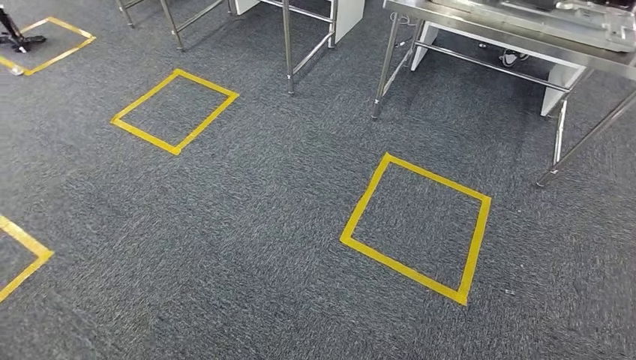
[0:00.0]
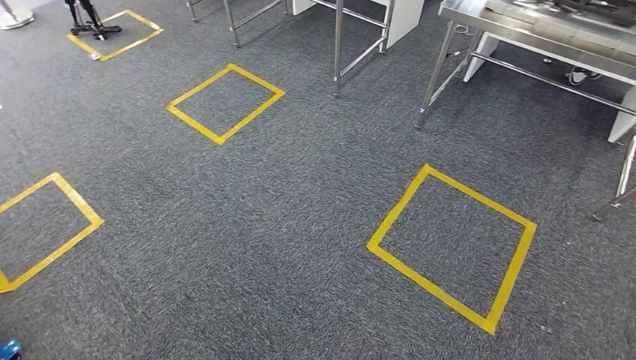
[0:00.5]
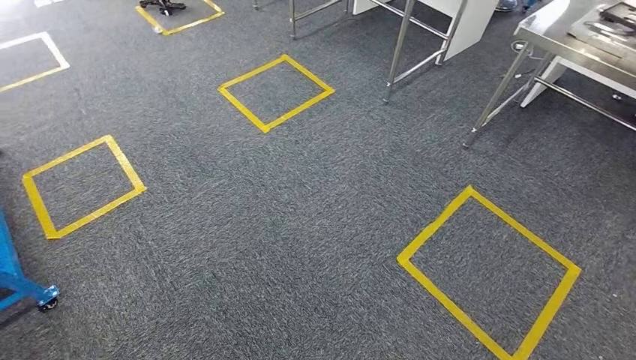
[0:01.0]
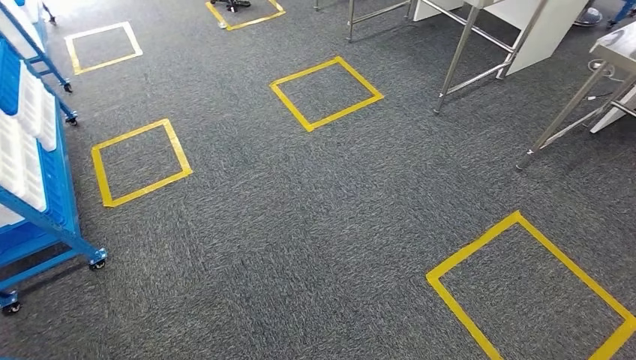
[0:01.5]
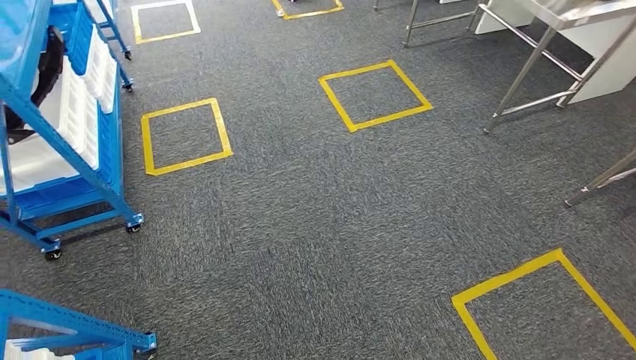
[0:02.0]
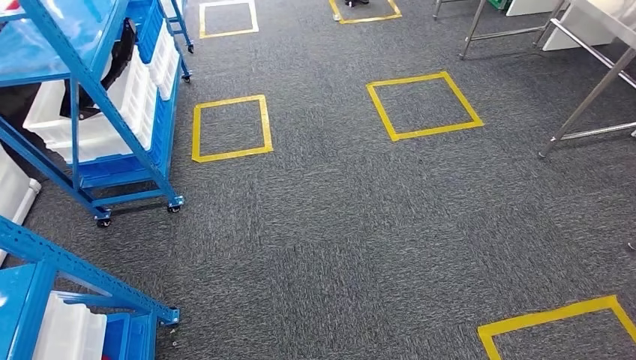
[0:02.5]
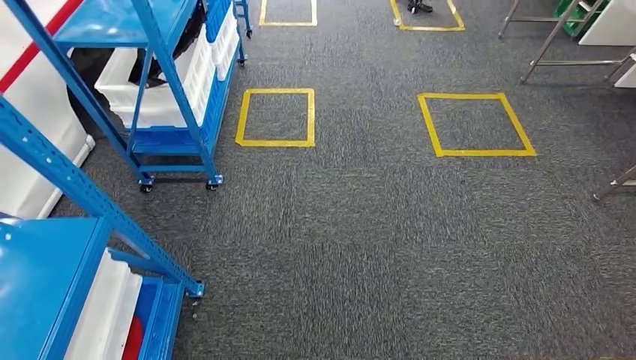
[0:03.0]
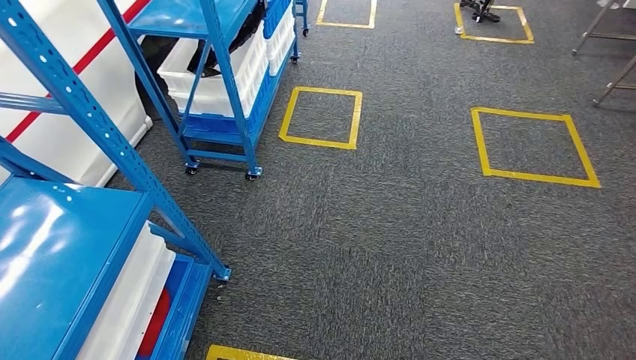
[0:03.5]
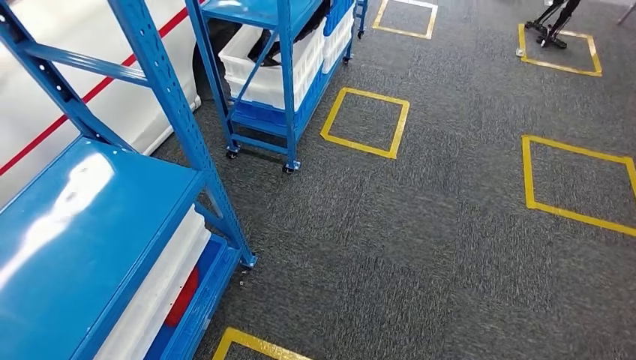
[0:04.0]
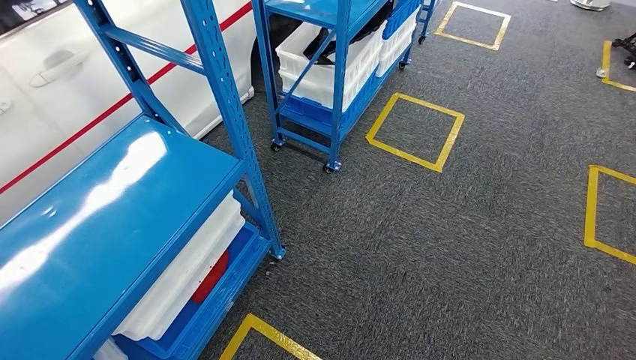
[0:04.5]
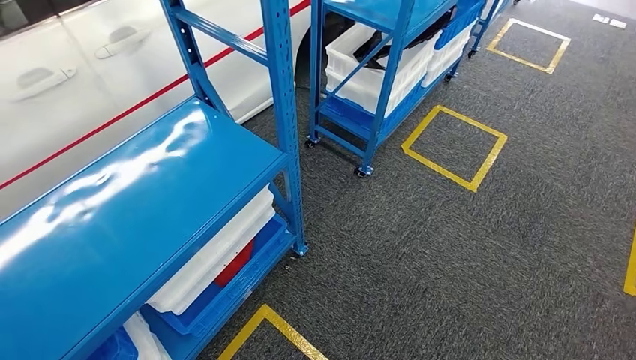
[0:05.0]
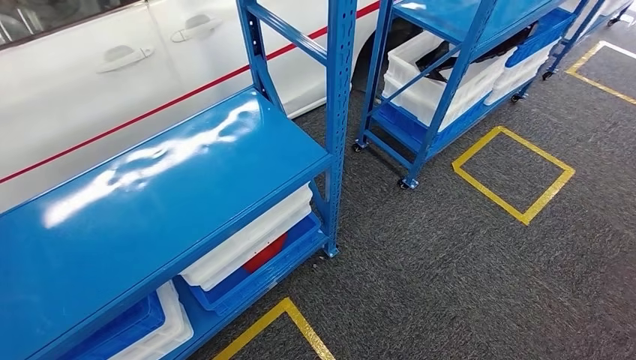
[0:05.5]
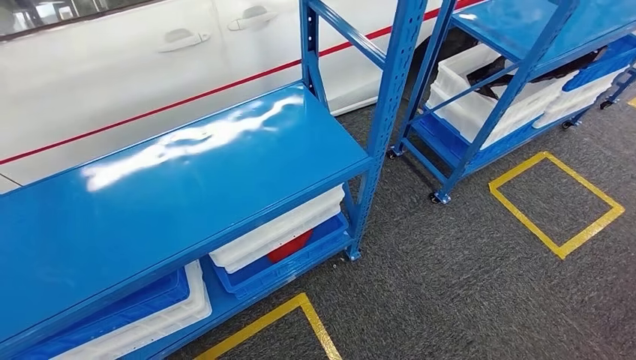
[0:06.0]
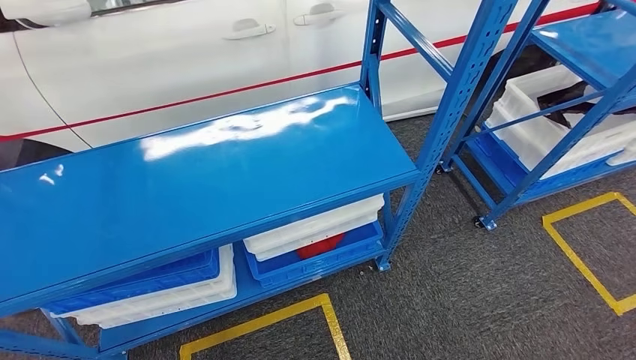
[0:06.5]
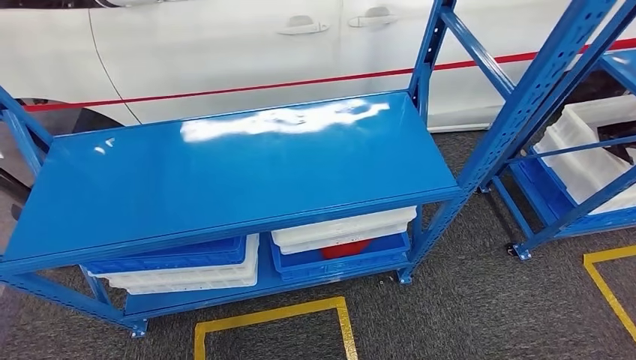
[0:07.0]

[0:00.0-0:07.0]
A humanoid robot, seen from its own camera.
Step, 0:00.0 to 0:07.0: Return to the initial position at the shelf.
